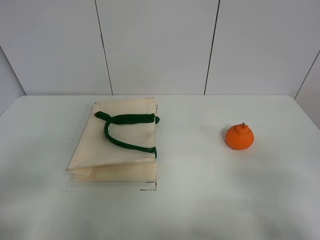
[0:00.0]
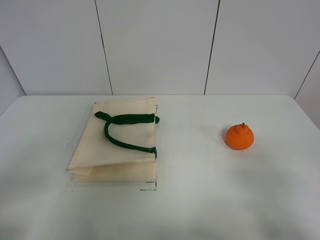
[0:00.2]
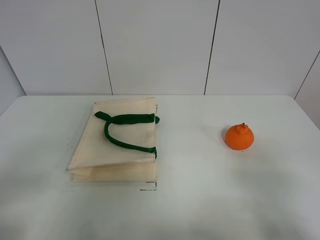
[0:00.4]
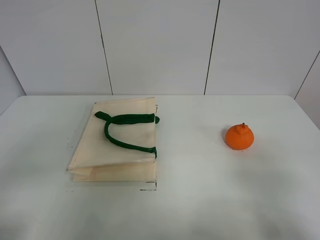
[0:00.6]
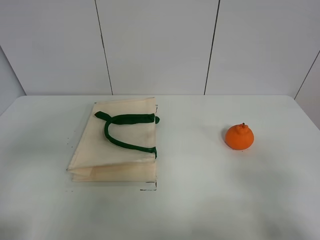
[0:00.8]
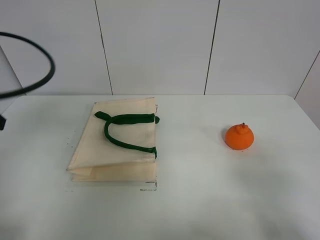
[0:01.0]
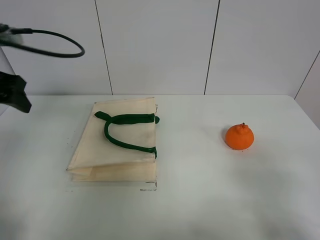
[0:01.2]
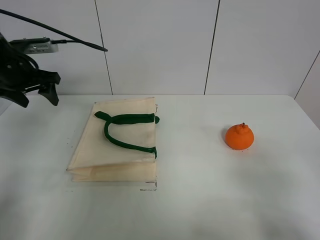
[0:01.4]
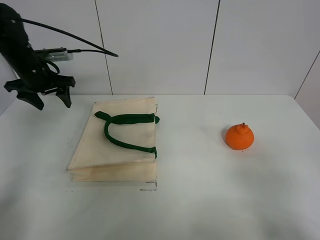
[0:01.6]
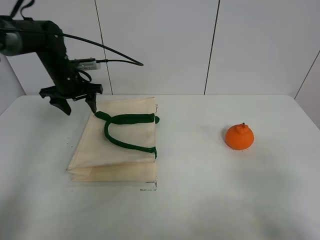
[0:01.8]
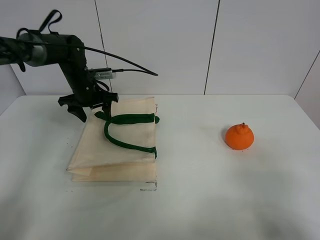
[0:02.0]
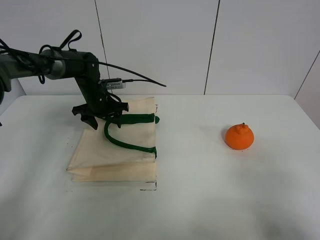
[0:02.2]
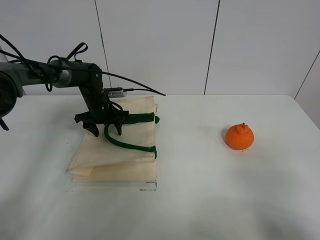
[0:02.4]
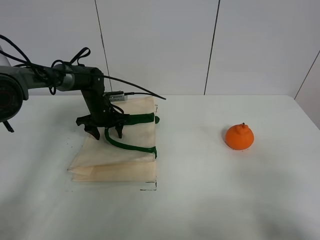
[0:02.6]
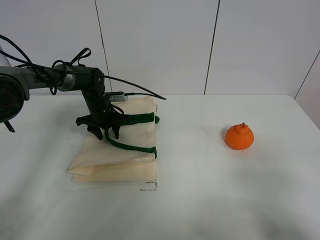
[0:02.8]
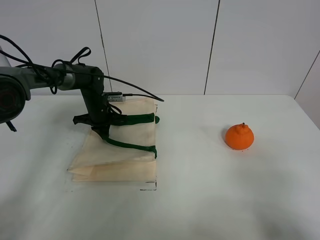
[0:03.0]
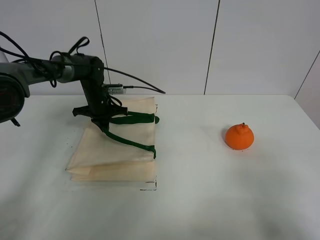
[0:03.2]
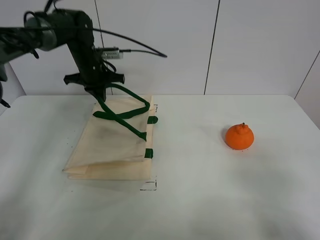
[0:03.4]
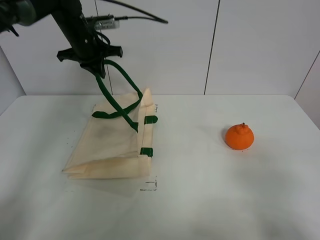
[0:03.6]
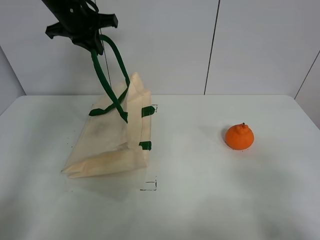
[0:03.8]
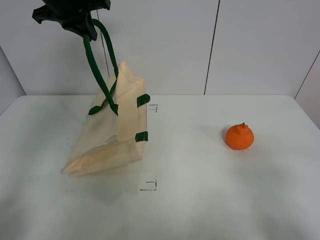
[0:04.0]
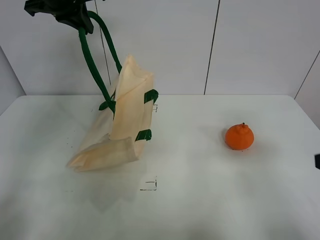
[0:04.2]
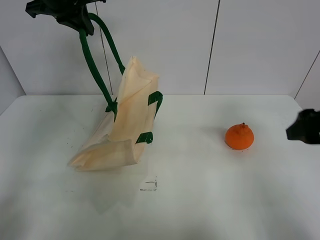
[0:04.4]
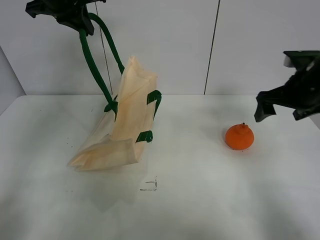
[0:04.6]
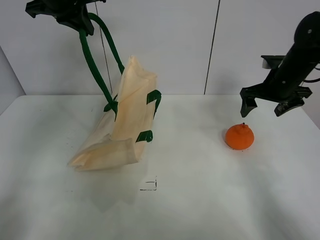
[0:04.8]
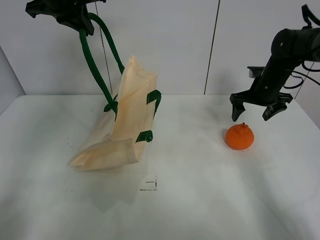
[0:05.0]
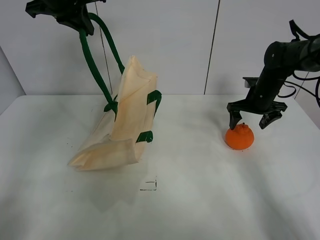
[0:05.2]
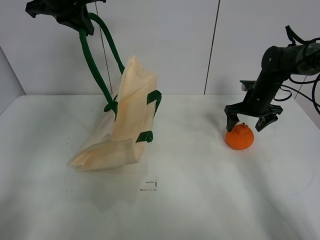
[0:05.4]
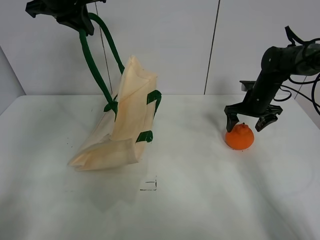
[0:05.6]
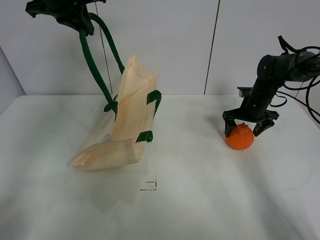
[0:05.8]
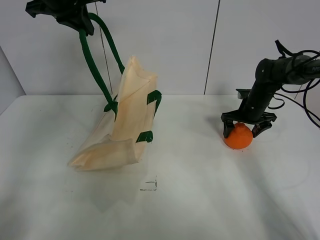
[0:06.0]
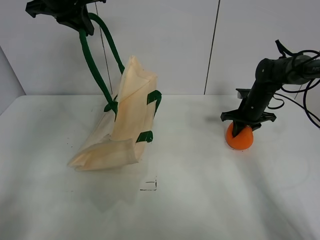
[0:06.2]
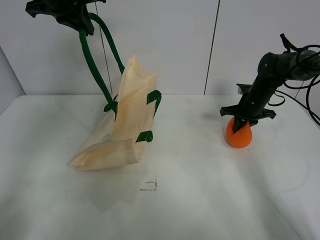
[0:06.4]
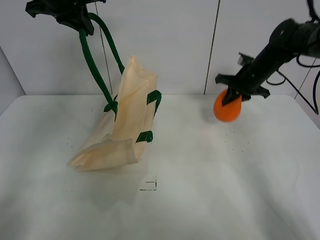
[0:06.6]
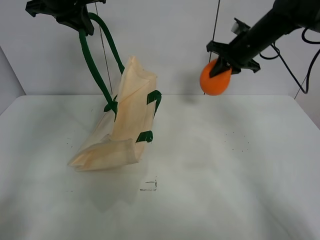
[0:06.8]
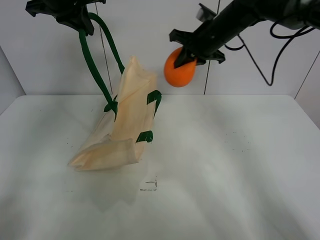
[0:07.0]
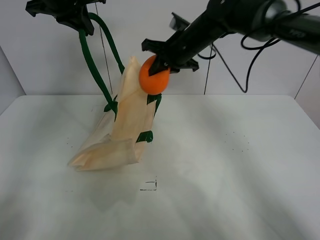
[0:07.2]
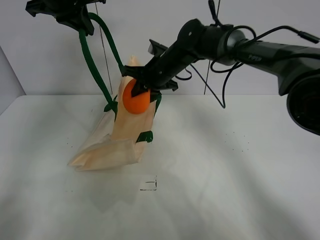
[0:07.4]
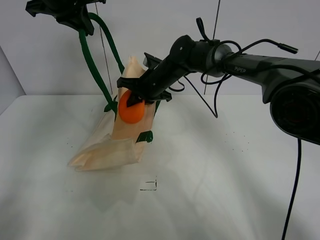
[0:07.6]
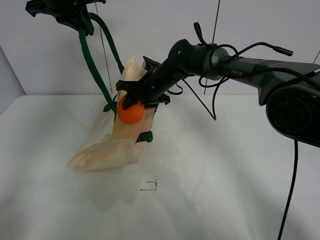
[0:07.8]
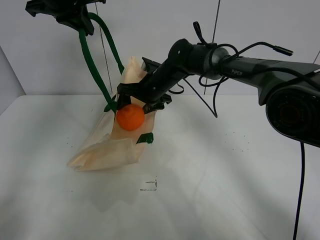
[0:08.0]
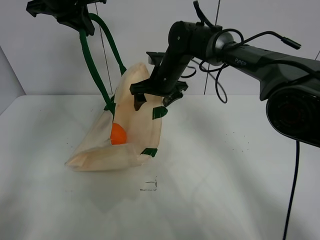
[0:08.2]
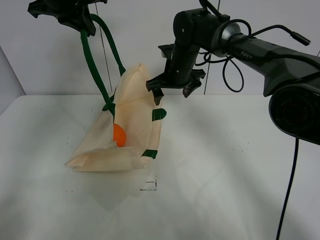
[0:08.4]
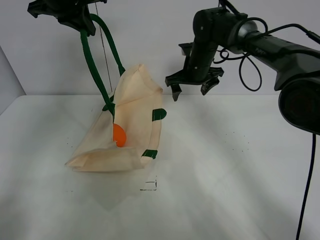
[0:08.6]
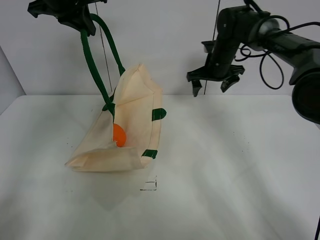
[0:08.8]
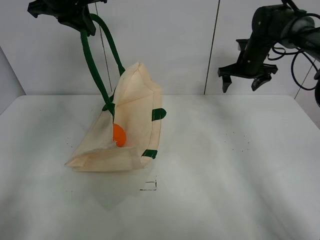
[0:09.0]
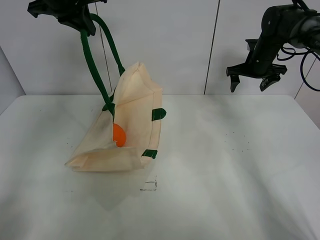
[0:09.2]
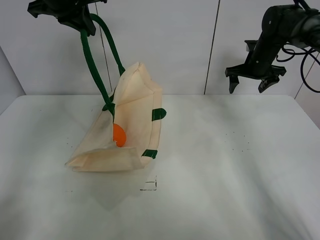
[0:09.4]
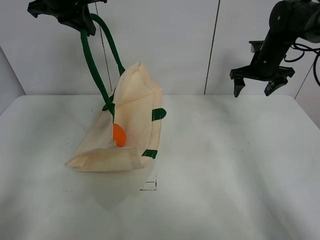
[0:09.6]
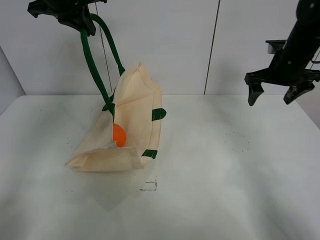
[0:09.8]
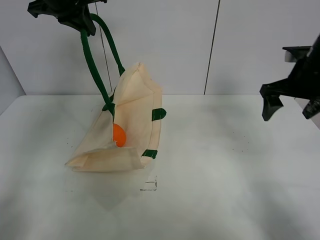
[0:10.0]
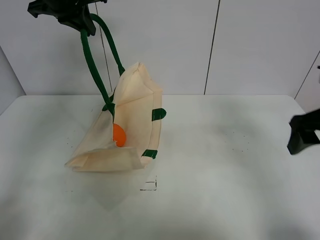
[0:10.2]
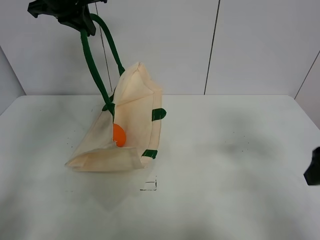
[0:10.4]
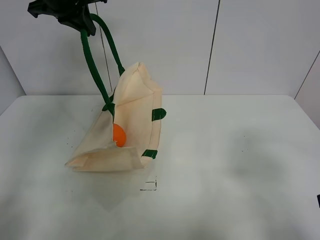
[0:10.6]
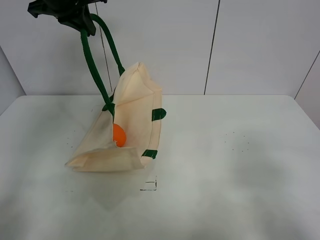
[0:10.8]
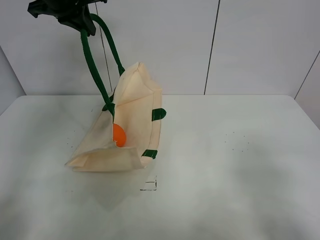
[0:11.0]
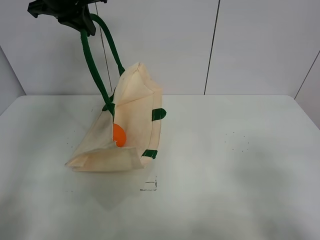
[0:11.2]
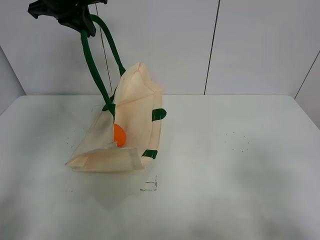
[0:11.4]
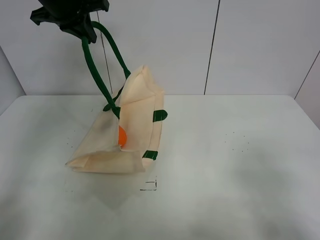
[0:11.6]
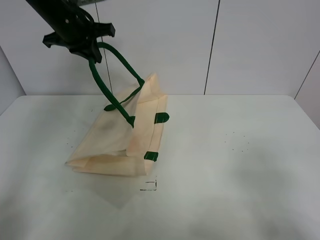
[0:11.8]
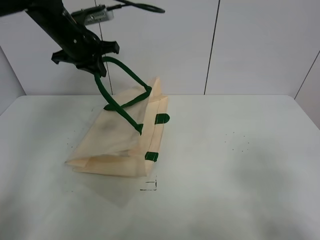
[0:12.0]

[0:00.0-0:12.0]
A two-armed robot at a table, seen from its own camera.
Task of the whole recording: open the white linen bag and put the orange in the bag.
Step, 0.0 to 4.0 s: Lift the handbag with left gripper.
Step, 4.2 to 6.2 s: Grasp the orange with right gripper.
Step, 6.4 to 8.2 s: Place the orange in the handbag with right gripper.
0.0 to 1.6 s: The left gripper heads forward, covering about 40 cm.
1.6 to 3.0 s: The left gripper travels downward and to the right by approximately 20 cm, and closes its fingers.
3.0 to 4.4 s: The left gripper shifts approximately 30 cm upward; the right gripper shifts about 20 cm forward.
4.4 to 6.0 s: The right gripper shifts some 30 cm forward and downward.
6.0 to 7.6 s: The right gripper goes some 25 cm to the left, and closes.
7.6 to 9.0 s: The right gripper goes approximately 25 cm to the right, and opens its fingers.
9.0 to 10.4 s: The right gripper is displaced backward by roughly 35 cm.
10.4 to 12.0 s: The right gripper travels backward by approximately 15 cm, while the left gripper shifts approximately 10 cm downward.

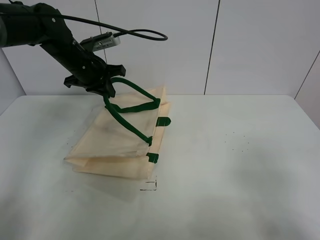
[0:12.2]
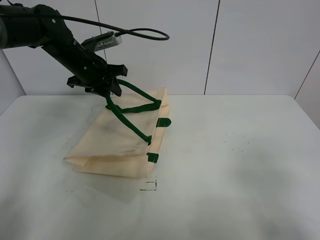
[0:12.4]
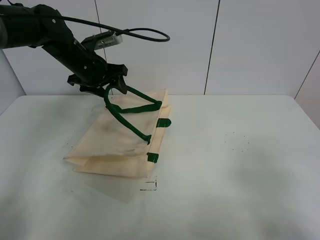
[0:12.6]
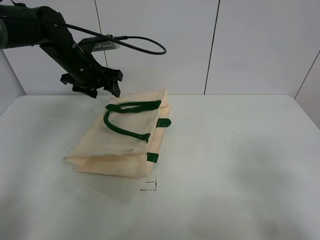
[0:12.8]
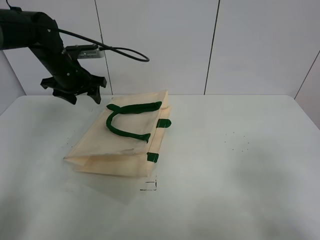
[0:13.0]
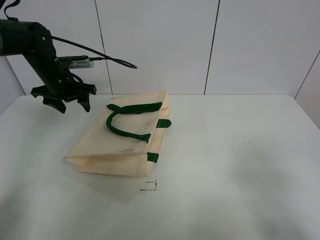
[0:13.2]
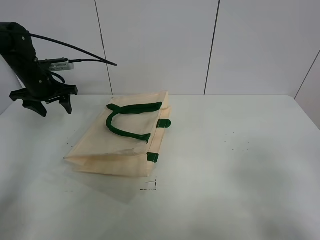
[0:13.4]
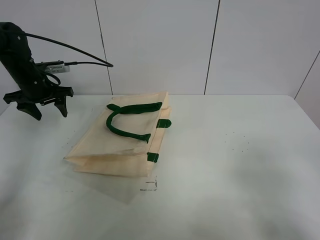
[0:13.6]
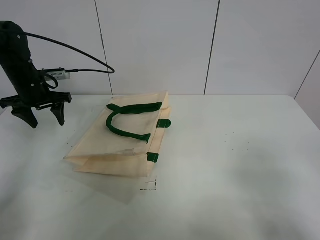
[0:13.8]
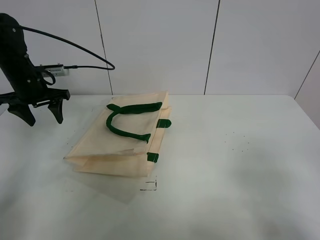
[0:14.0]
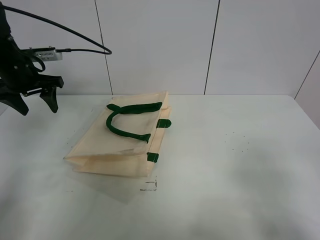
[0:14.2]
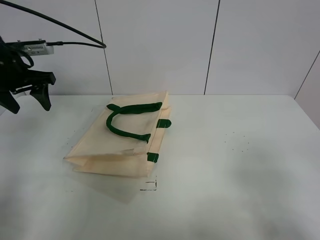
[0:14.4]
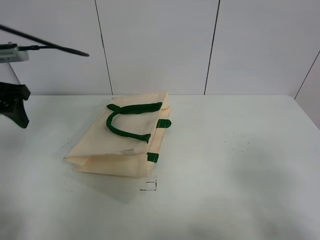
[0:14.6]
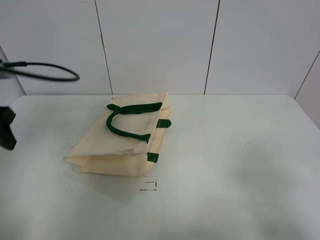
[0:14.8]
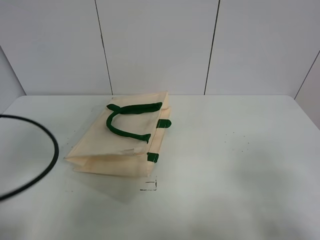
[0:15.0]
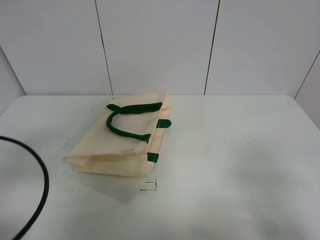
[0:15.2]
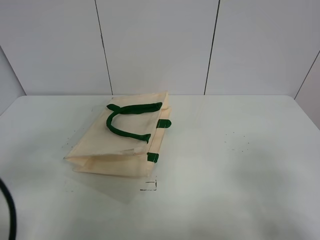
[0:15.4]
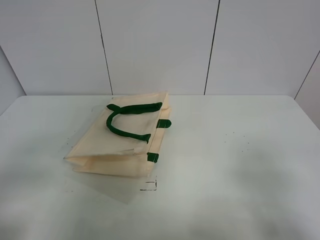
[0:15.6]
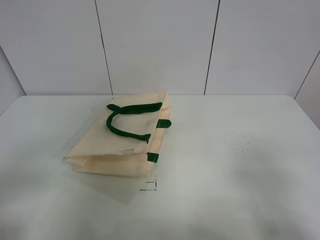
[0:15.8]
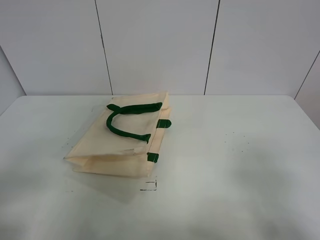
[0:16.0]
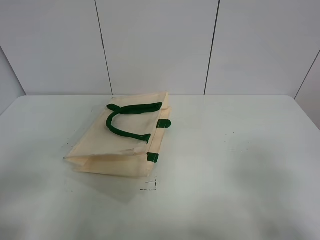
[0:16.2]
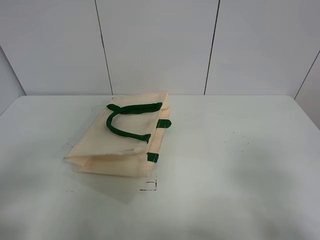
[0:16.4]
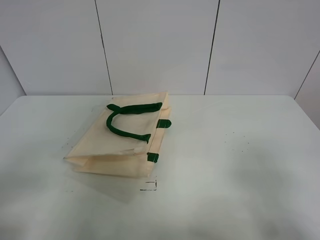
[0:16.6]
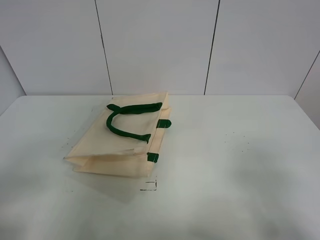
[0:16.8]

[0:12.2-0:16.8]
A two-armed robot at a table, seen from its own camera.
Task of the whole recording: open the white linen bag and put the orange in the bag.
12.2 to 13.8 s: The left gripper is displaced to the left by approximately 15 cm, and opens its fingers.
13.8 to 15.2 s: The left gripper heads backward, covering roughly 30 cm.
15.2 to 16.8 s: The left gripper is displaced backward by about 10 cm.

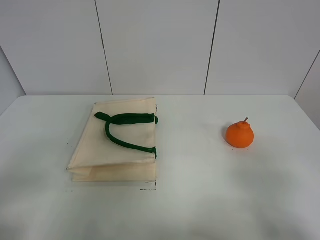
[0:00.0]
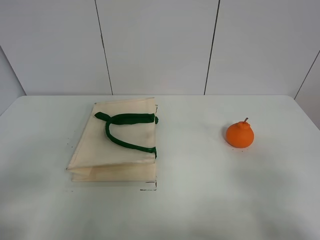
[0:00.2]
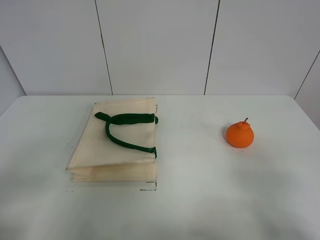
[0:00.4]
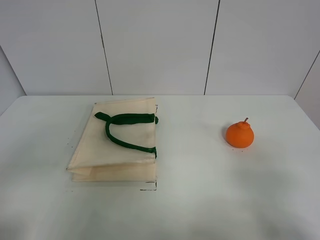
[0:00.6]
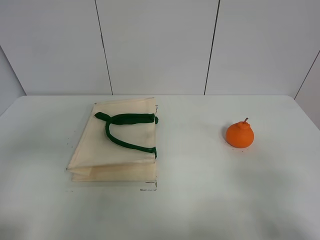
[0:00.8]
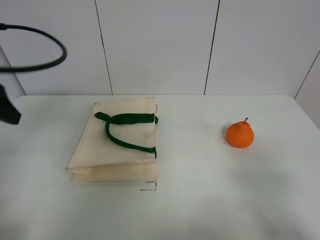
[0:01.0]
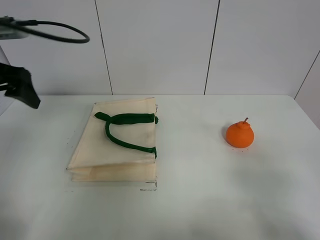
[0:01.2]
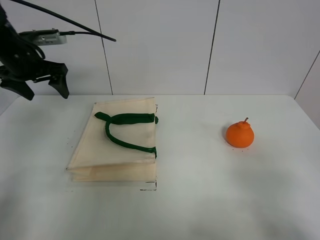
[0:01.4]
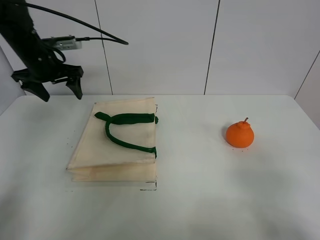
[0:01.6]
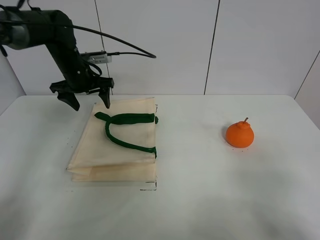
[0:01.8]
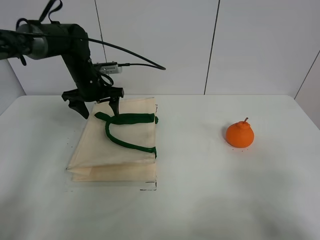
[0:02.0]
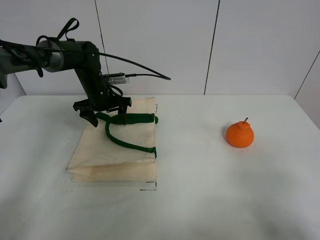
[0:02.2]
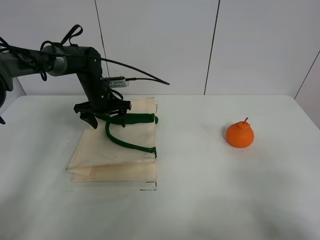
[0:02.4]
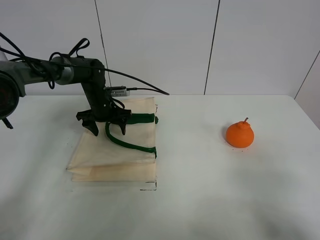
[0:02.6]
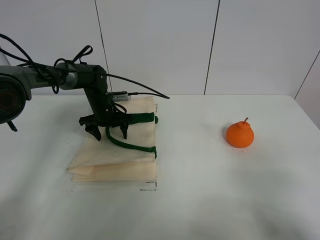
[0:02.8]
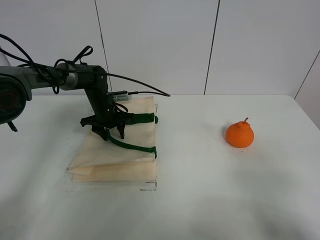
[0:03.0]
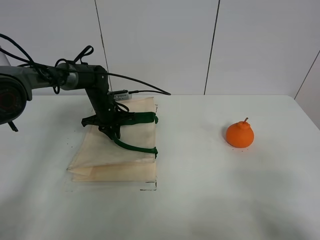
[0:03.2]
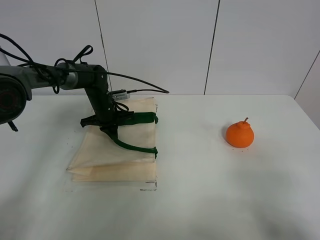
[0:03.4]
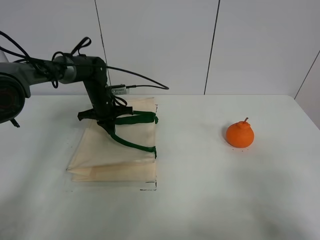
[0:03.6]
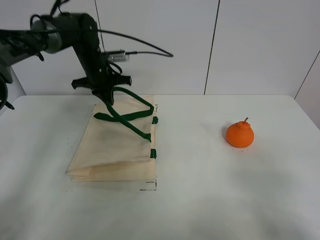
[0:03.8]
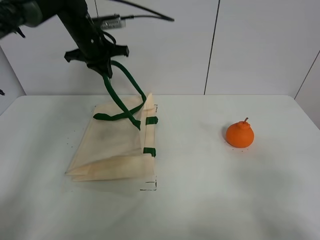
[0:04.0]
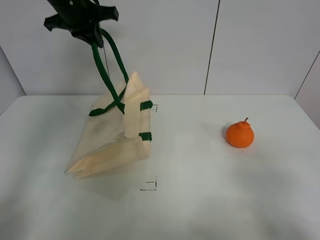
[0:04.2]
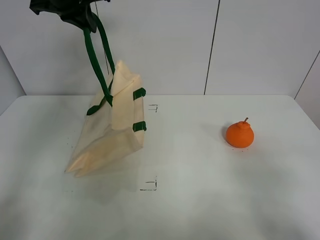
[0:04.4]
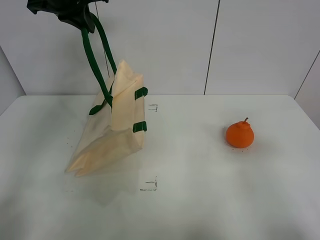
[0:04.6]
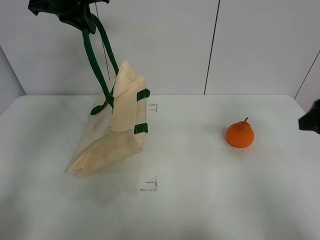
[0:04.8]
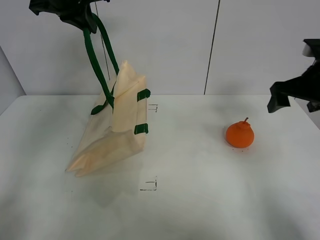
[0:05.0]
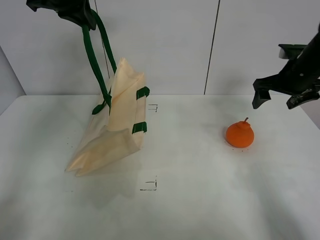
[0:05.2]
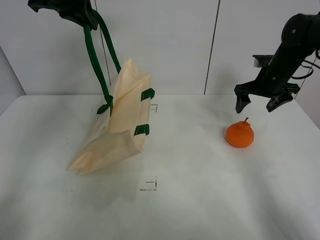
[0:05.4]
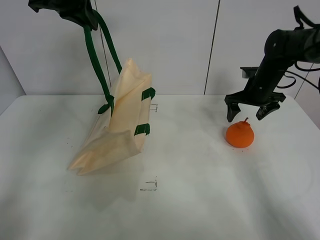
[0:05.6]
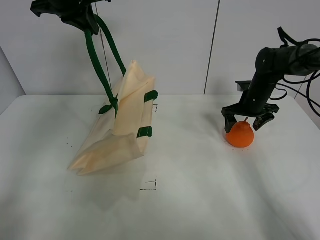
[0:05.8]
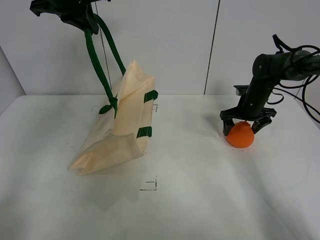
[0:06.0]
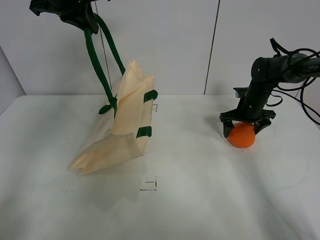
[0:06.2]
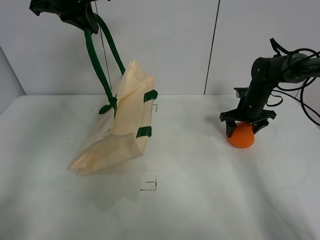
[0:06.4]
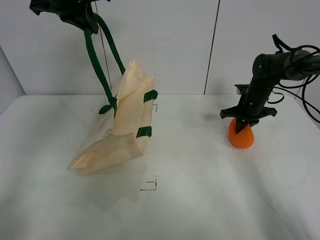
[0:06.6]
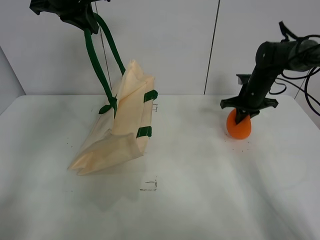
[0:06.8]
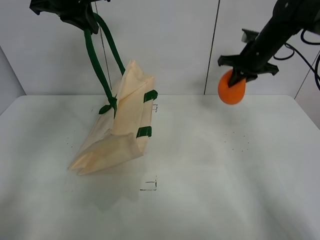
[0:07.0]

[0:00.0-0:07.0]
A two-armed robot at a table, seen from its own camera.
Task of the whole recording: open the white linen bag and put the orange in the bag.
Step, 0.0 to 4.2 s: Lift the handbag with left gripper.
Step, 4.4 to 6.6 s: Grasp the orange with right gripper.
0.0 to 1.4 s: The left gripper moves forward, some 40 cm.
1.4 to 2.8 s: The left gripper moves downward and to the right, approximately 25 cm.
2.8 to 4.2 s: The left gripper heads upward, covering about 30 cm, and closes.
4.2 to 5.6 s: The right gripper shifts about 40 cm forward.
5.6 to 7.0 s: The right gripper travels upward by about 10 cm, and closes up.
